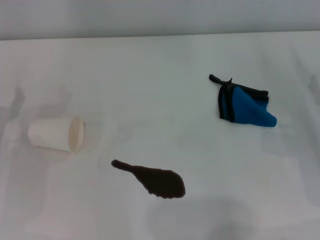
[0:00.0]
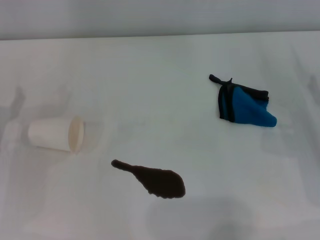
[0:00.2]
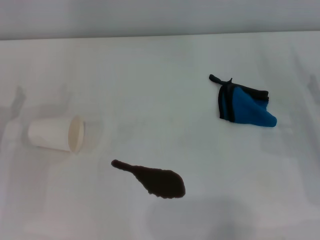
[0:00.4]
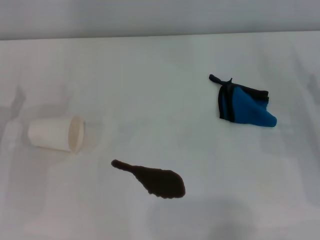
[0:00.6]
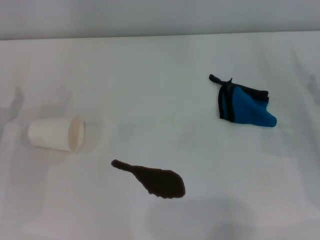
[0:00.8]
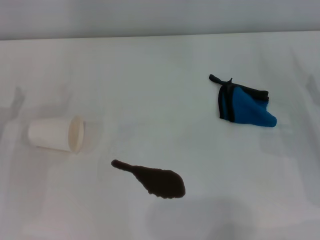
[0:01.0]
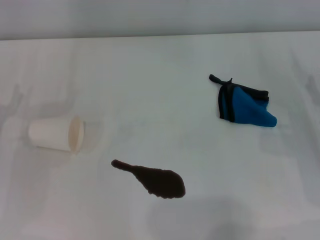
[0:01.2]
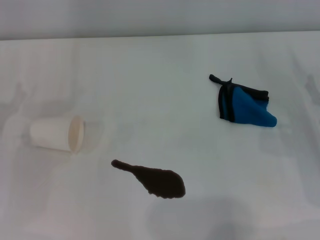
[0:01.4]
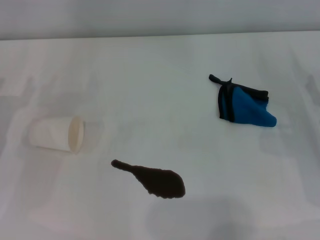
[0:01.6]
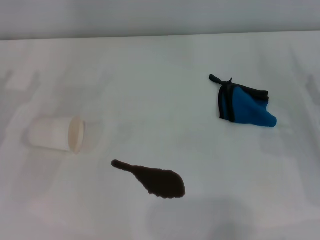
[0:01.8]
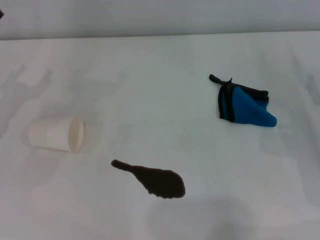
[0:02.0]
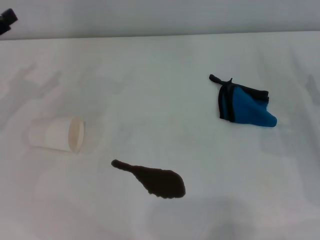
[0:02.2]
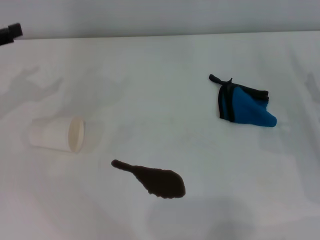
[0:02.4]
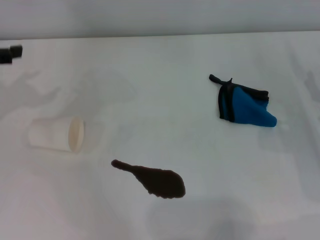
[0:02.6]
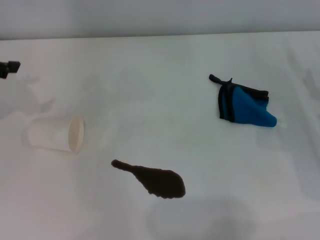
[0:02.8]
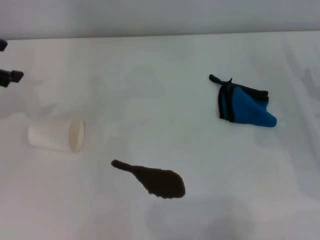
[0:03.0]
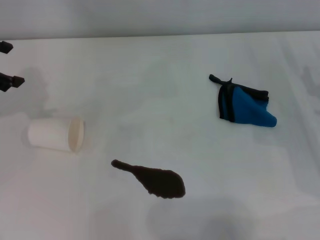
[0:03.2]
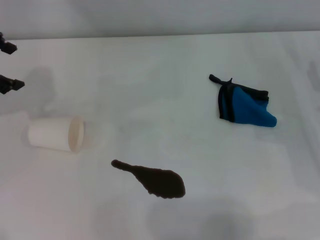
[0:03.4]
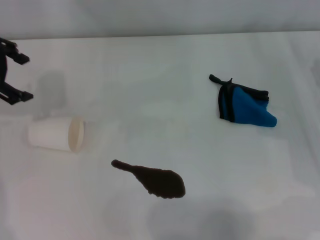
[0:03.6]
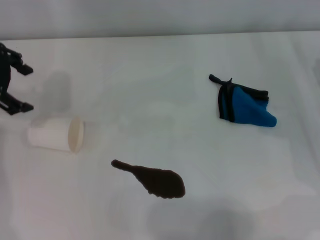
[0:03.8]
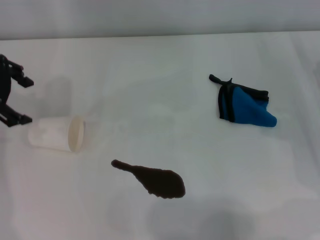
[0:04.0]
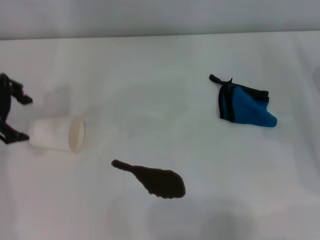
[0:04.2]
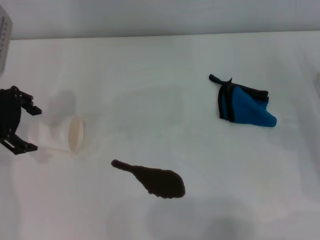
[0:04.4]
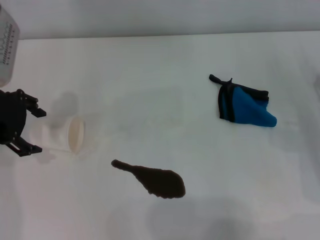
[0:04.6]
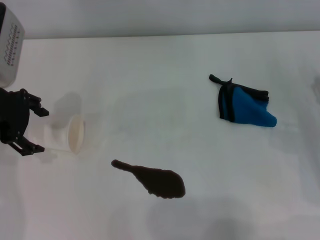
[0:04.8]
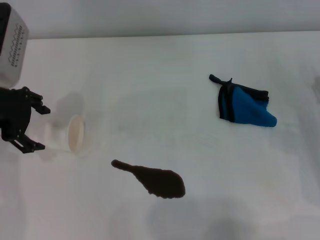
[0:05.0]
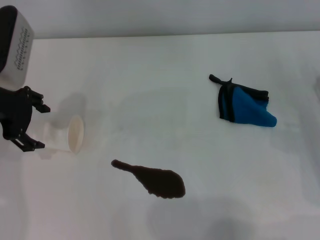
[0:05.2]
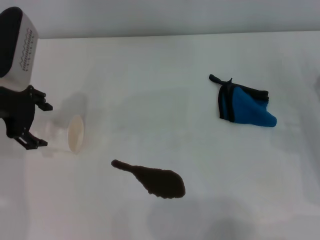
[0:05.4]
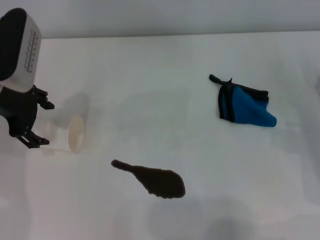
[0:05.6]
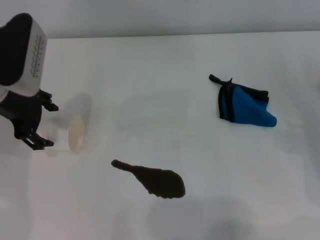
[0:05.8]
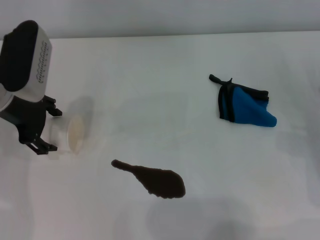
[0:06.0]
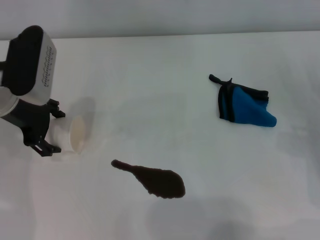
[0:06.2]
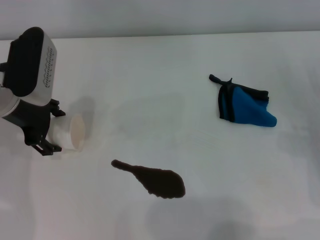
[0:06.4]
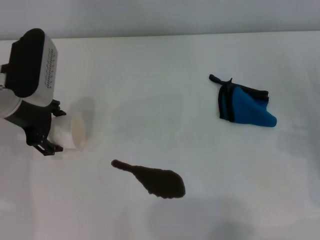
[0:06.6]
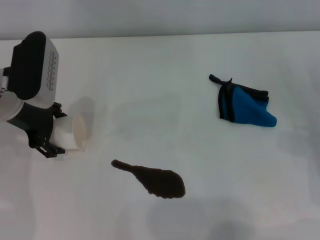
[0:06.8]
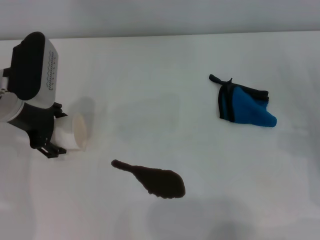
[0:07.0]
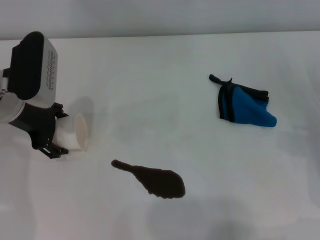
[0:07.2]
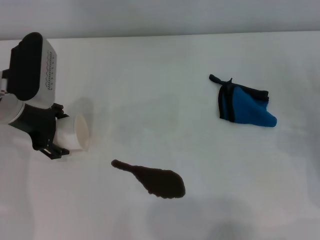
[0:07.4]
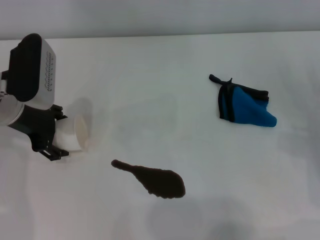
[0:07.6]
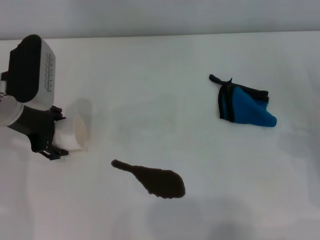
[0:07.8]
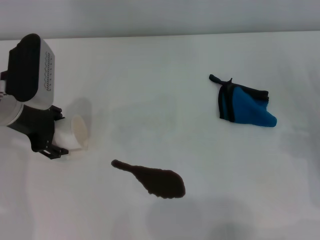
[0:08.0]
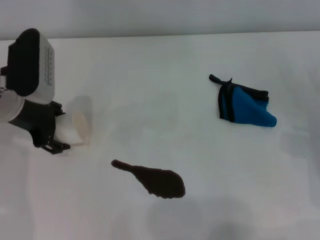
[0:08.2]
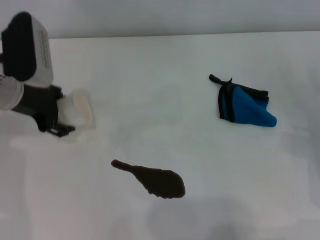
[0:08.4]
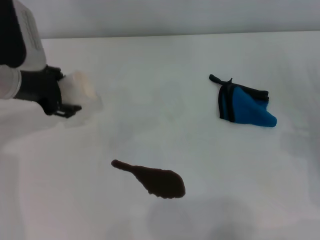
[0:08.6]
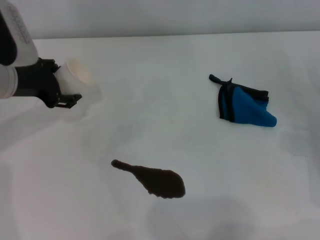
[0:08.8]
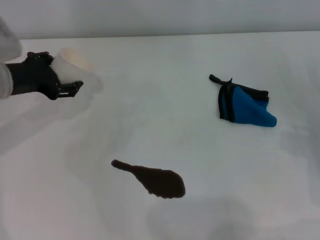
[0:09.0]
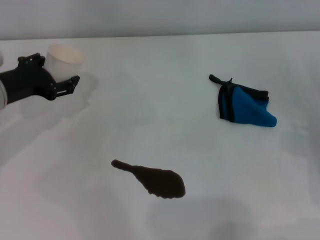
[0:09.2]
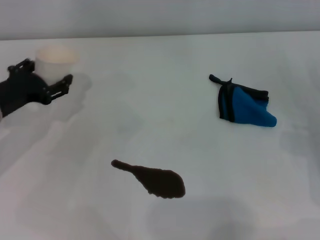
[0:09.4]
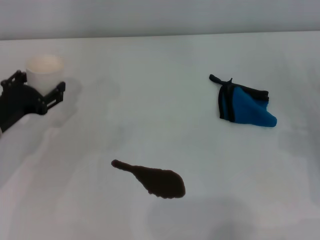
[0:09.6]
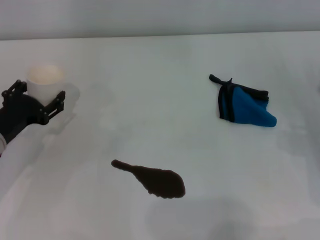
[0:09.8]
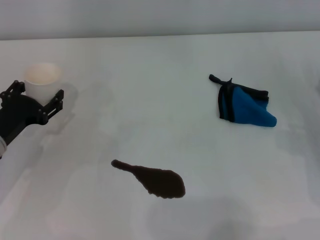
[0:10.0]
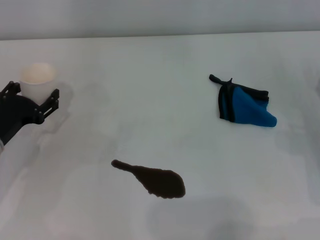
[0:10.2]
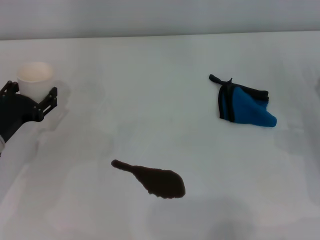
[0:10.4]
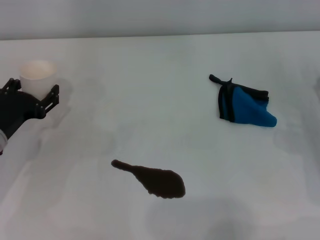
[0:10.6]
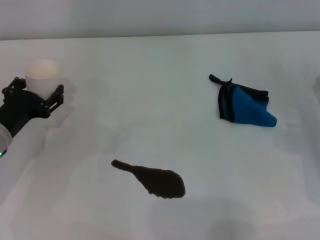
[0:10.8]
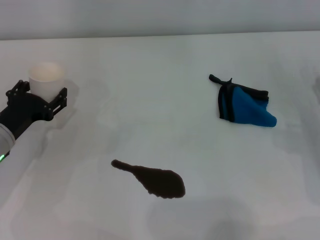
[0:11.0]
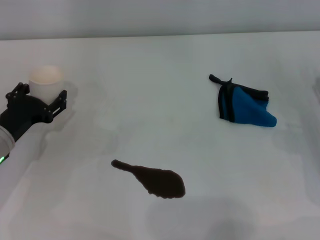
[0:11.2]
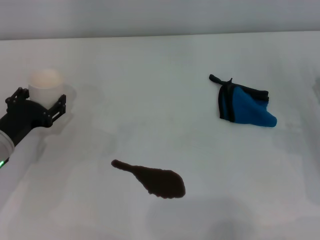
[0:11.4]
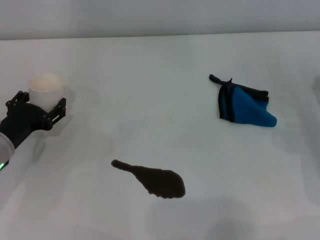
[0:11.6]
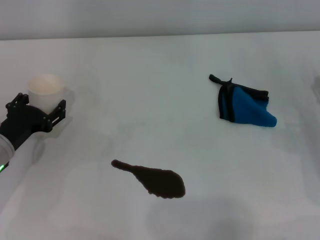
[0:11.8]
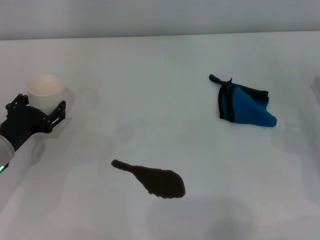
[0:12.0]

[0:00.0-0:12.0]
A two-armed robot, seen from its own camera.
Step, 0:00.0 to 0:08.0: Grasp the paper cup with the left gripper.
0:03.0 to 0:04.4: The left gripper moves to the right, some 5 cm.
0:04.4 to 0:06.0: There are only small adjustments of the grippers.
0:06.0 to 0:07.6: The grippers stay close to where they were, moving slightly.
0:09.0 to 0:10.4: The left gripper travels downward and backward by some 10 cm.
0:10.4 to 0:12.0: There are only small adjustments of the grippers.

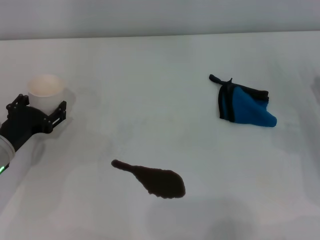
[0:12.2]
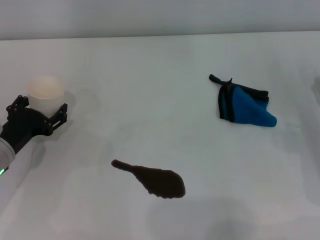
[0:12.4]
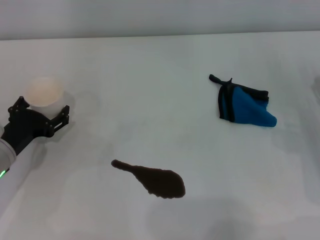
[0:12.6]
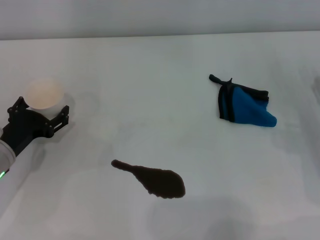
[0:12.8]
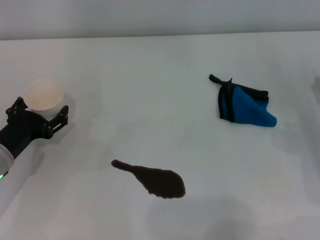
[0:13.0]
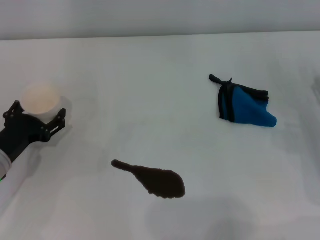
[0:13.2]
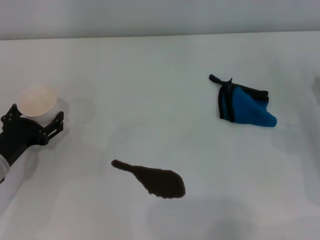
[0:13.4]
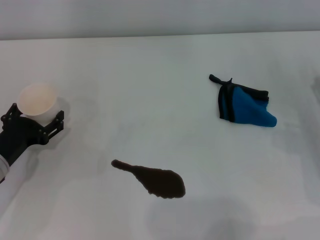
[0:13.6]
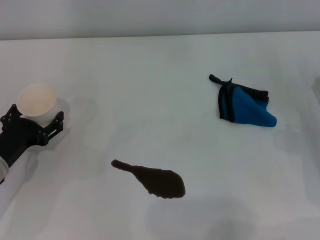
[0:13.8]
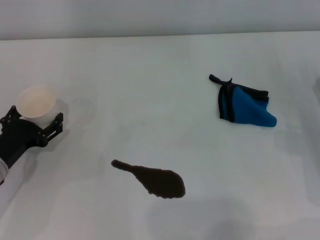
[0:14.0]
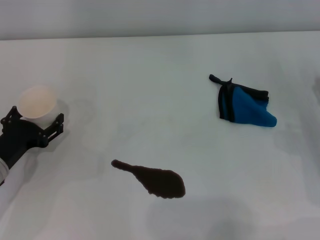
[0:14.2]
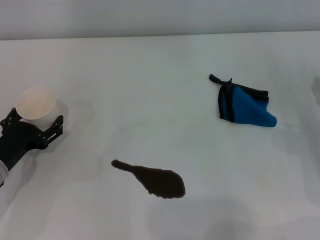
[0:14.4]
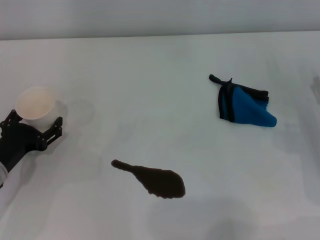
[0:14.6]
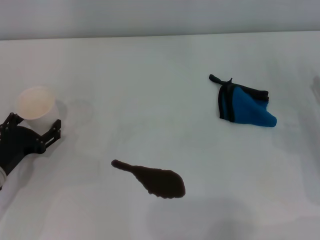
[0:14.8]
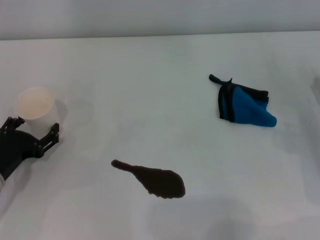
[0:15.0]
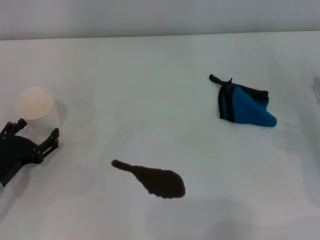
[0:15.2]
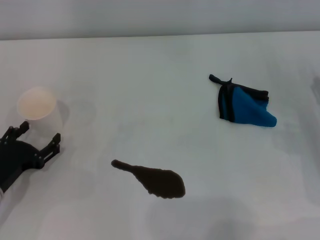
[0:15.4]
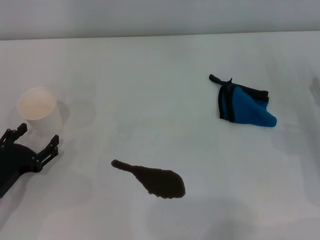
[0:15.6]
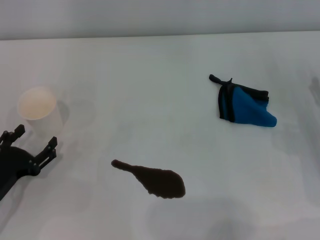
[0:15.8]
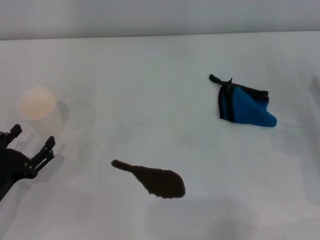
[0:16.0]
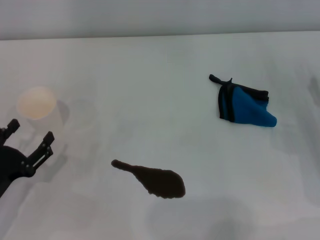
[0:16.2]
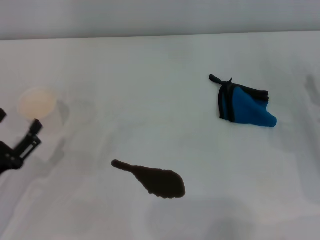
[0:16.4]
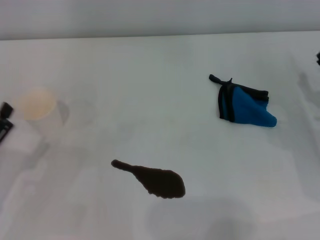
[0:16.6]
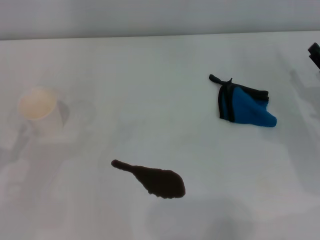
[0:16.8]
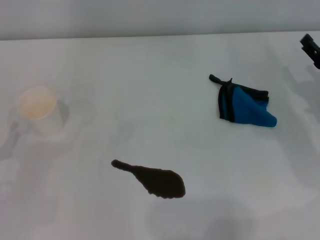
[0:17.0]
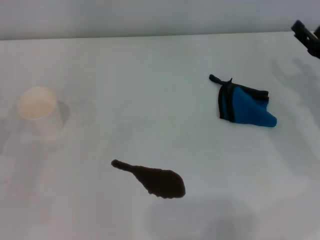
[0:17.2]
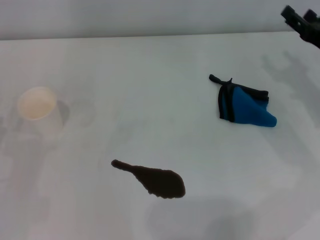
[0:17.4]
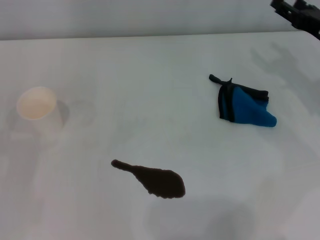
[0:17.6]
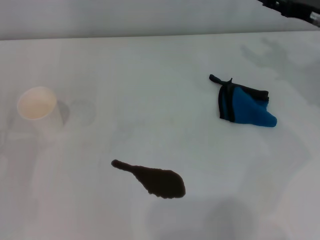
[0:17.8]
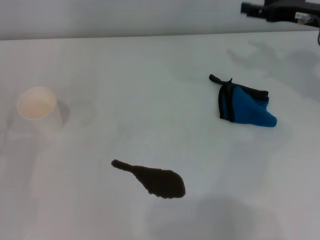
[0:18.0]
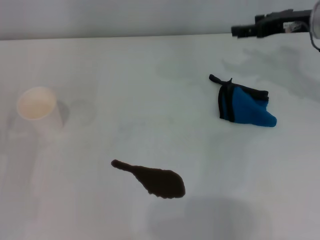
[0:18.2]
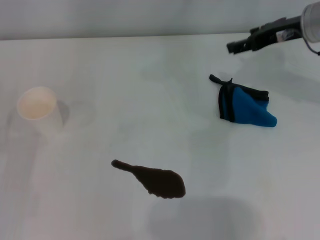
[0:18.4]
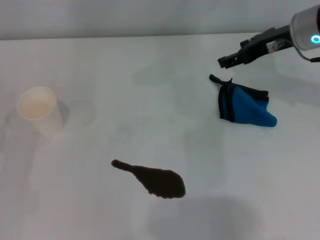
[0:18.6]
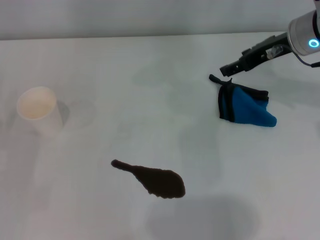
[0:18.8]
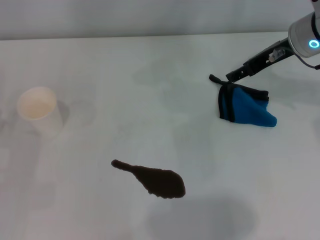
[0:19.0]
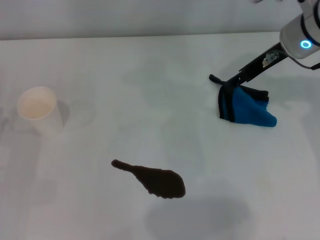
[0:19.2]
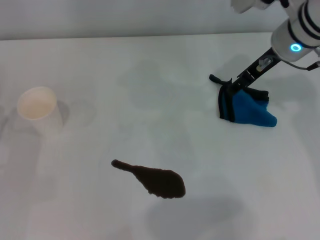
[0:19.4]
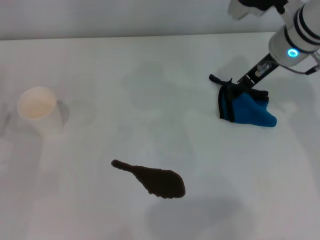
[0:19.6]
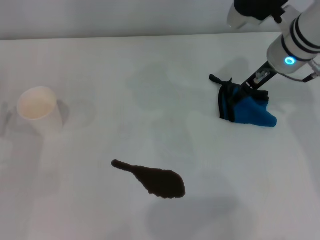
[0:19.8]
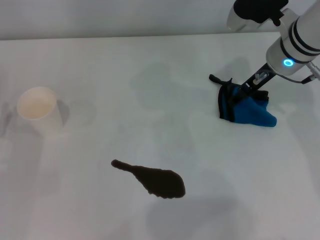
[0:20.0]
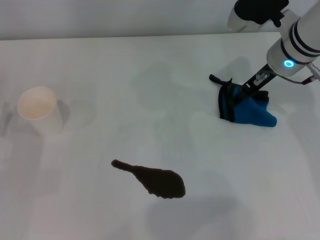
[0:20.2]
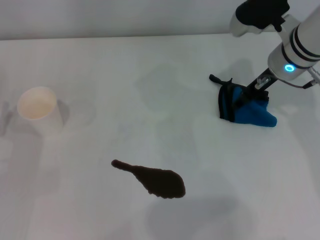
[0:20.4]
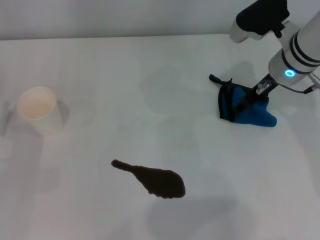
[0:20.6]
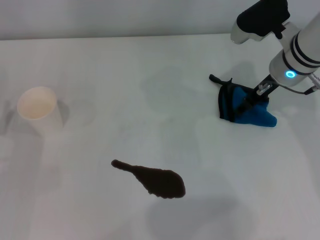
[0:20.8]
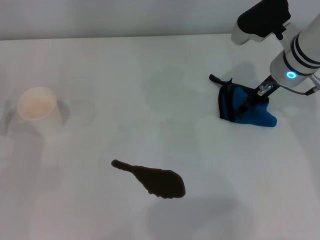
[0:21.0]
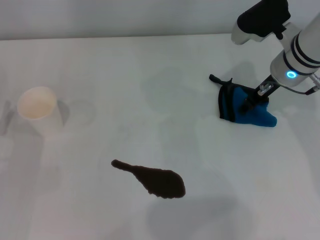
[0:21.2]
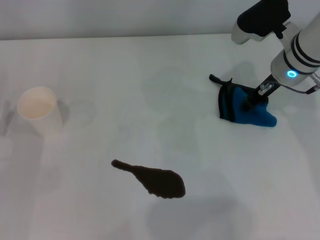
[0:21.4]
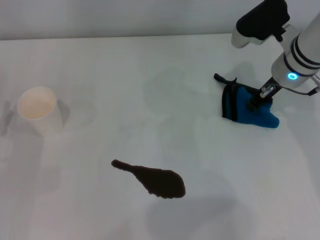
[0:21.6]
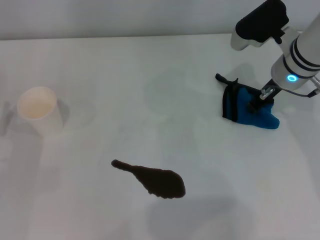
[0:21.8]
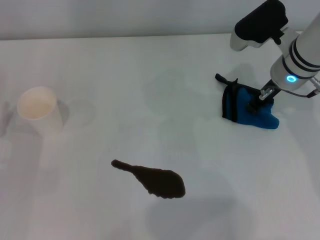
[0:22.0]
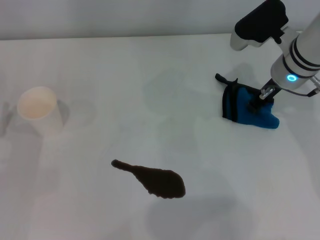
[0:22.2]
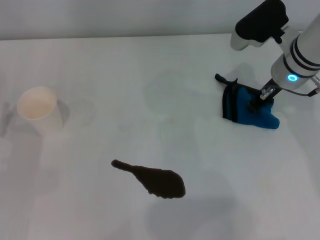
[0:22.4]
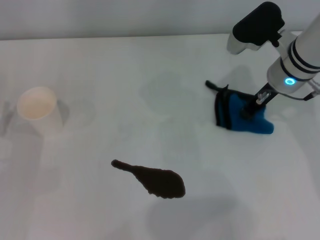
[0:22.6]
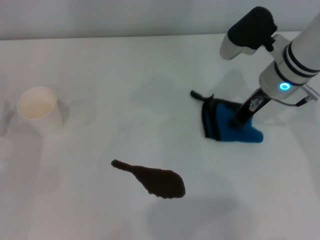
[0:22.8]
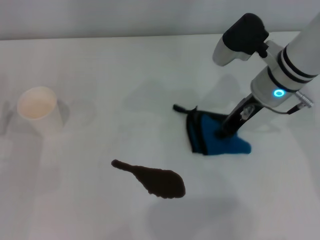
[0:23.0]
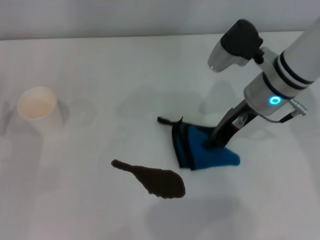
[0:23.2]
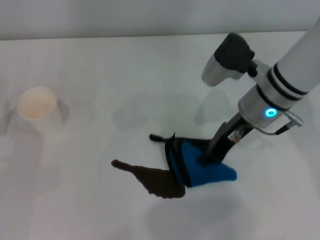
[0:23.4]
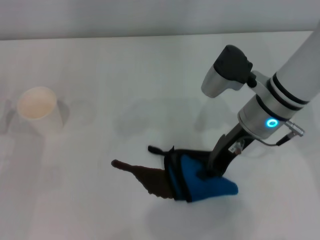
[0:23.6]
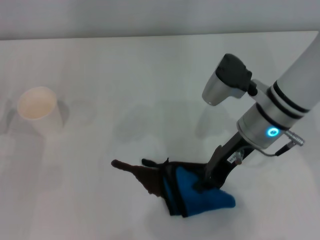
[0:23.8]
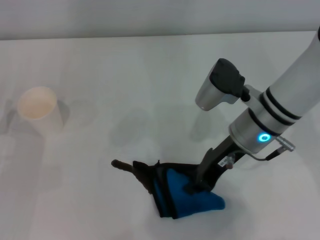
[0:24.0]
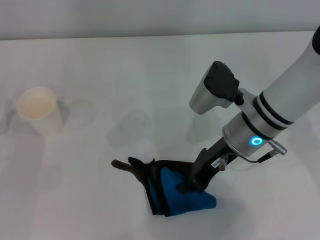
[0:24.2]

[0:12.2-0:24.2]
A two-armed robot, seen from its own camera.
Step, 0:12.2 to 0:14.8: Stand the paper cup upright with the left gripper.
Step, 0:15.2 to 0:21.2: Grasp the rag with the right gripper.
0:12.2 to 0:15.2: The grippers stay close to where they were, moving slightly.
0:15.2 to 0:16.6: The left gripper heads backward, covering some 5 cm.
0:16.6 to 0:18.2: The right gripper goes about 20 cm upward and forward.
0:18.2 to 0:19.8: The right gripper shifts about 10 cm to the left.
0:19.8 to 0:21.2: There are only small adjustments of the grippers.
0:21.2 to 0:22.6: The right gripper closes.
0:22.6 to 0:24.2: The right gripper goes about 10 cm backward and to the left.
